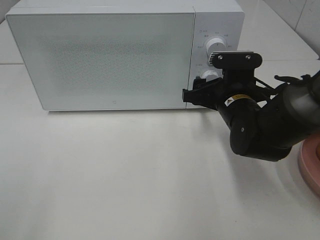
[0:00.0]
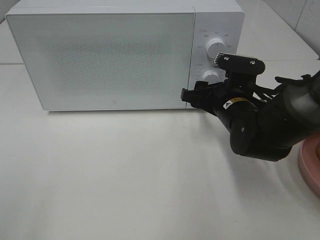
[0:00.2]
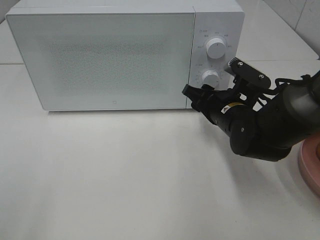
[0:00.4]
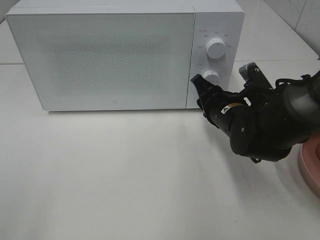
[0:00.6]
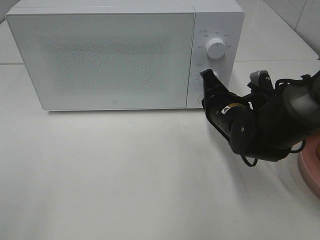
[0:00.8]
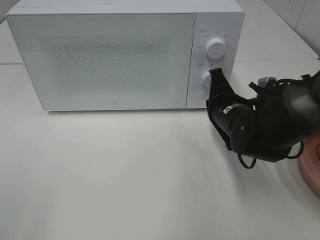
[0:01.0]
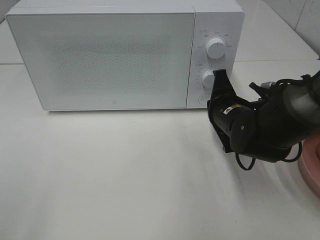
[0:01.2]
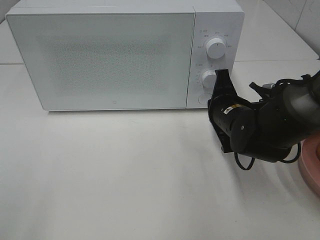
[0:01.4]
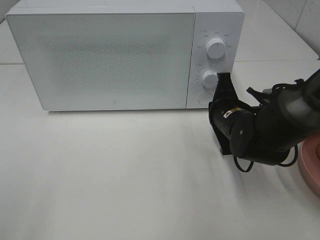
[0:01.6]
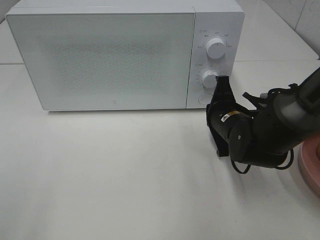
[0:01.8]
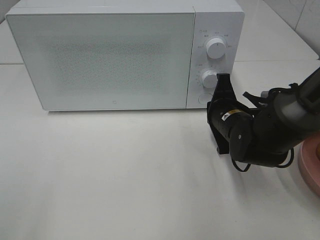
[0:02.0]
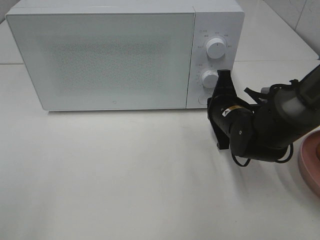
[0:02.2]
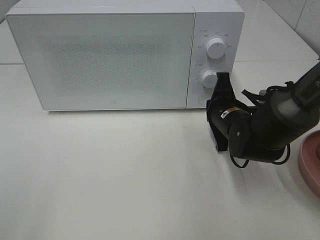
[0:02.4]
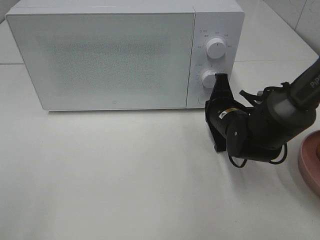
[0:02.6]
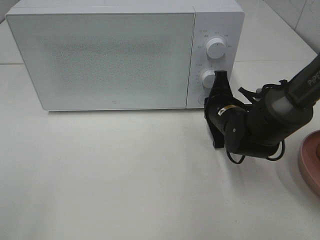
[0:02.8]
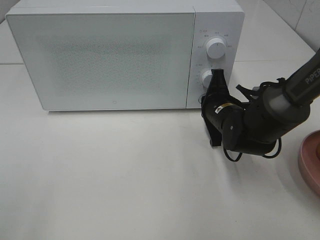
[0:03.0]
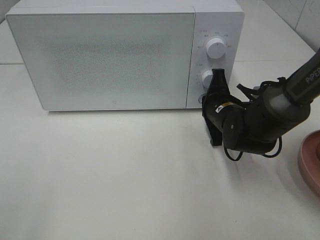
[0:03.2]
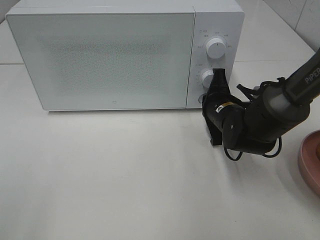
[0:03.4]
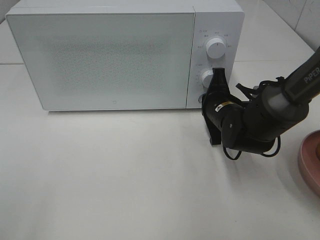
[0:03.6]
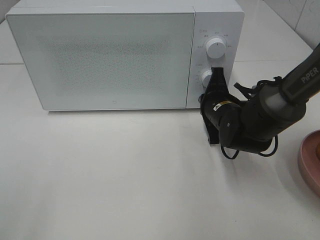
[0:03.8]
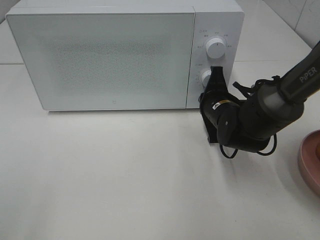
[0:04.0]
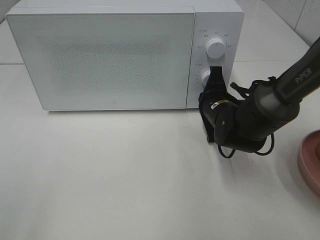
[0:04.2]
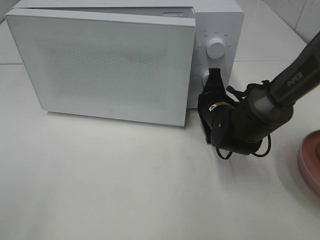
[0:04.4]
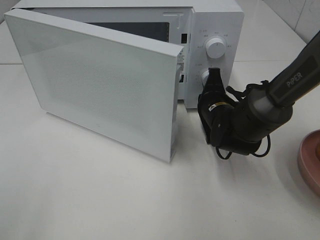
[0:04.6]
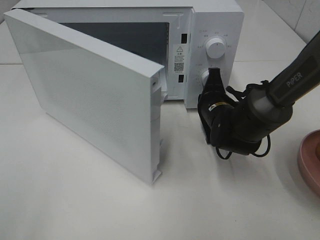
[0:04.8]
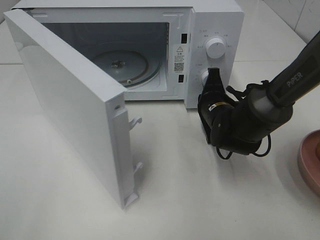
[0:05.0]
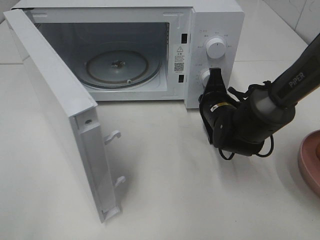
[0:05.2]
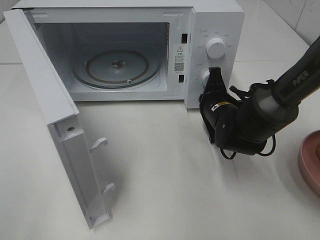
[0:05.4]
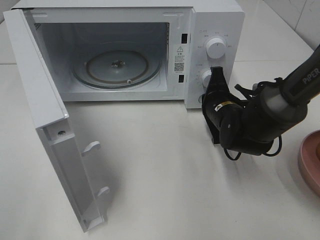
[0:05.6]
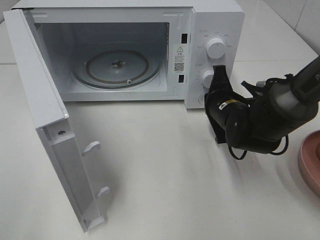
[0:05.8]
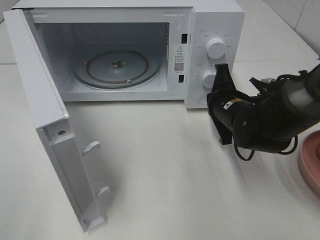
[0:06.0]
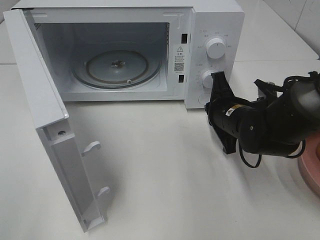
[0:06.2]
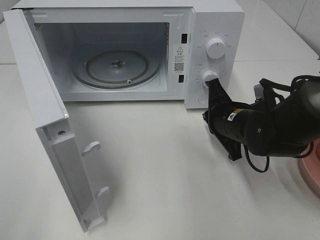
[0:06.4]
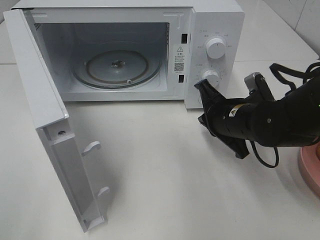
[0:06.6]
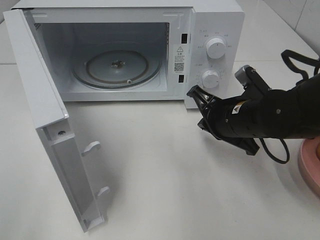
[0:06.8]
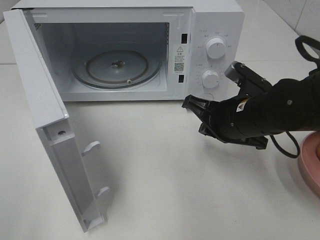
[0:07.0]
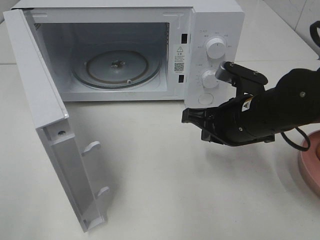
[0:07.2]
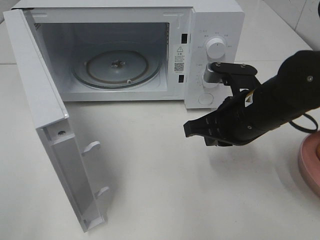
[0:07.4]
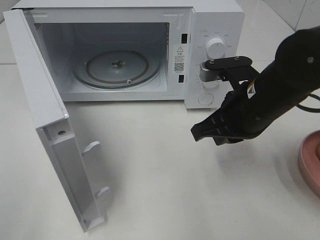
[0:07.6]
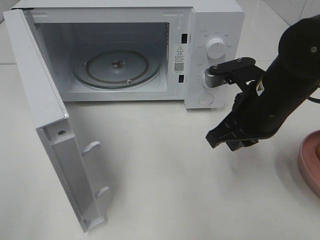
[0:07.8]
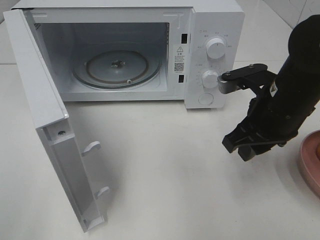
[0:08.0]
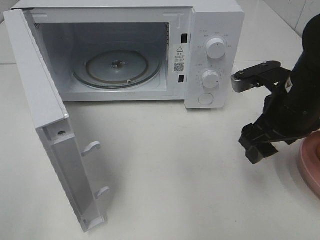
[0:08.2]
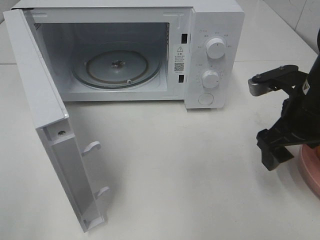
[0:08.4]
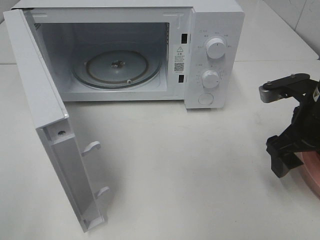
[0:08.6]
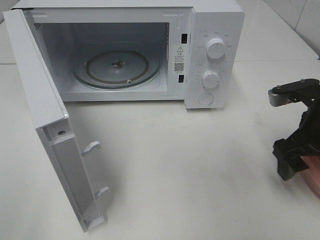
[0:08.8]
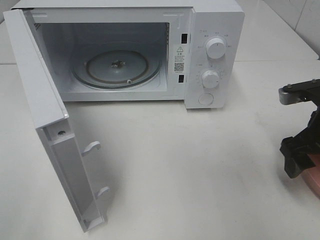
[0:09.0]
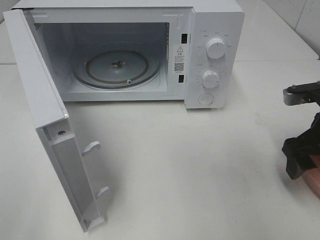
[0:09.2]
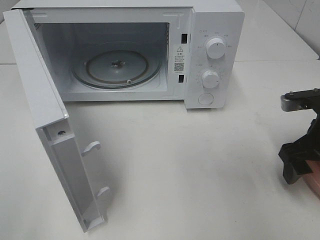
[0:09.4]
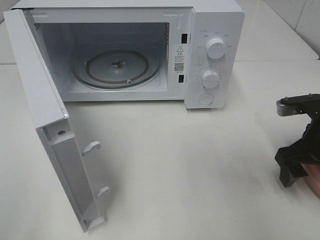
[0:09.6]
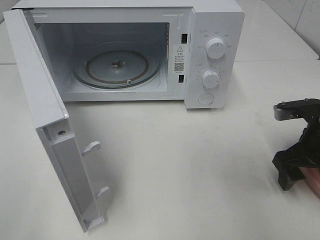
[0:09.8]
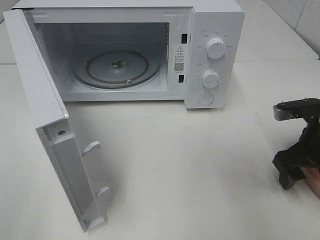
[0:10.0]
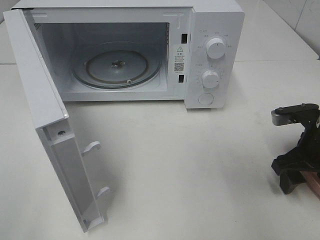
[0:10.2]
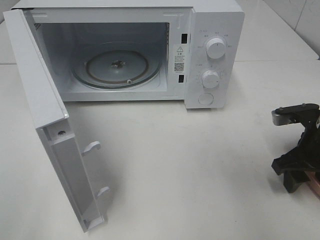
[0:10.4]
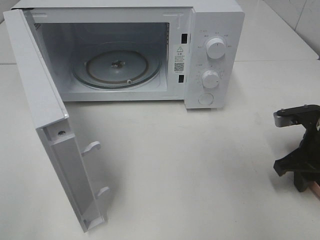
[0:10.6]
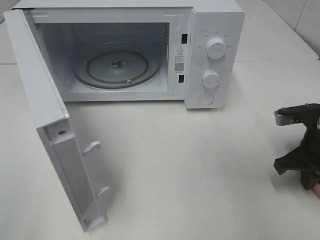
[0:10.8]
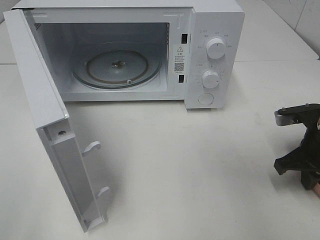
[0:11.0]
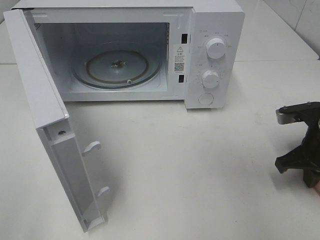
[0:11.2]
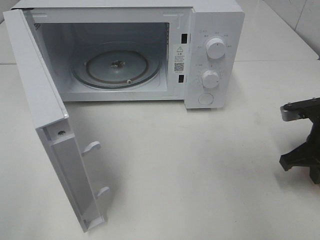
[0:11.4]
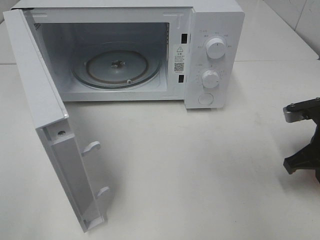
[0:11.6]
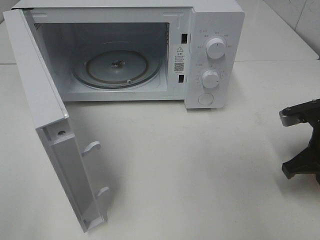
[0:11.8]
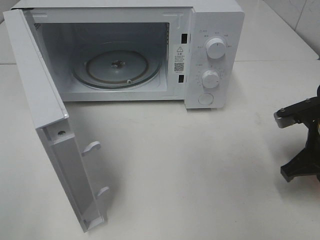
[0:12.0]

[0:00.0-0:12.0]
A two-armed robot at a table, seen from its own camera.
Task of the whole recording: Heat the burger.
Step, 0:00.0 to 0:05.8: Right hand: press the switch.
Step, 0:06.0 to 0:11.2: Right hand: grab the plate with the hamburger.
0:00.0 to 0:01.6: The right gripper closes its fingers.
0:01.6 to 0:04.4: The grippers move only a little.
0:06.0 to 0:07.6: The right gripper shifts about 10 cm upward and backward.
0:07.6 to 0:09.0: The right gripper is displaced to the right by approximately 10 cm, and opens.
0:09.0 to 0:10.4: The right gripper moves downward, roughly 5 cm.
0:10.4 to 0:12.0: The right gripper closes up.

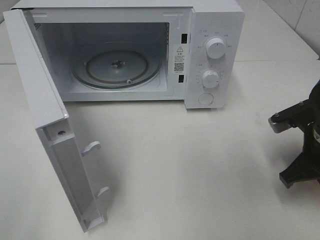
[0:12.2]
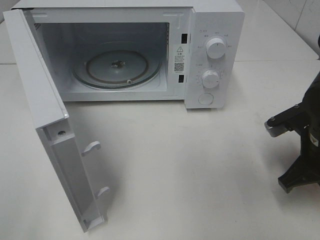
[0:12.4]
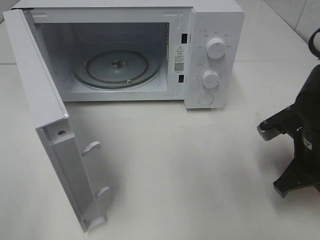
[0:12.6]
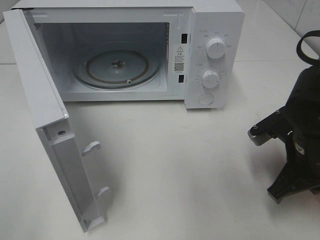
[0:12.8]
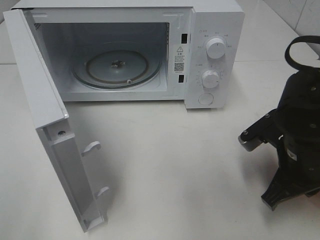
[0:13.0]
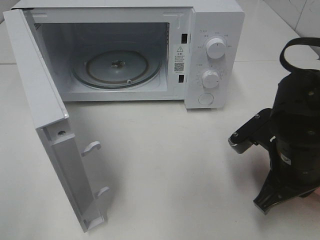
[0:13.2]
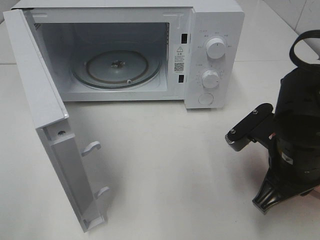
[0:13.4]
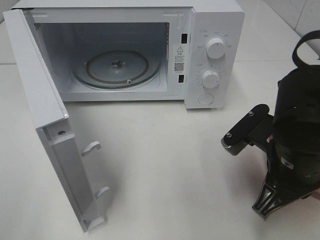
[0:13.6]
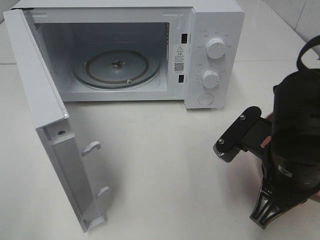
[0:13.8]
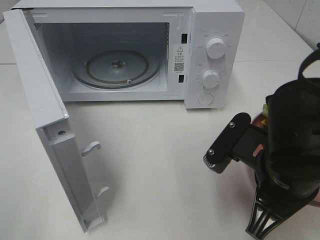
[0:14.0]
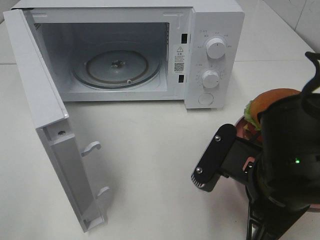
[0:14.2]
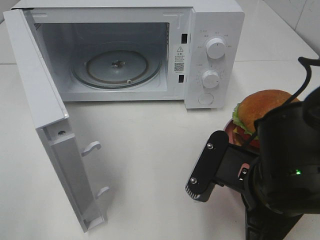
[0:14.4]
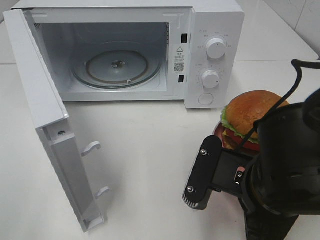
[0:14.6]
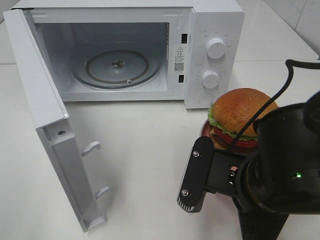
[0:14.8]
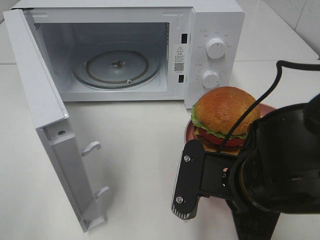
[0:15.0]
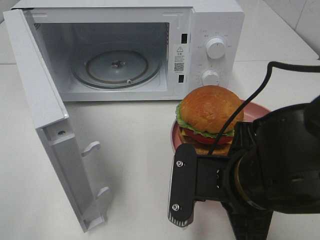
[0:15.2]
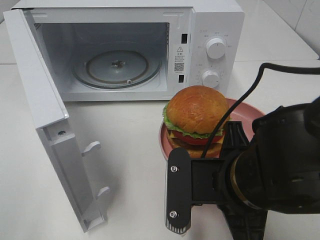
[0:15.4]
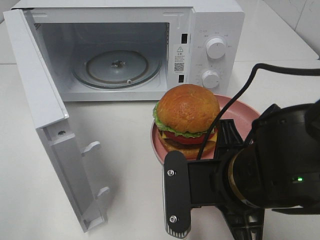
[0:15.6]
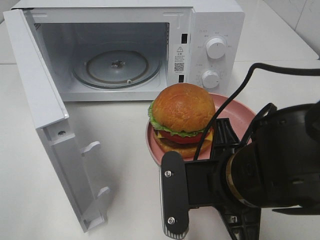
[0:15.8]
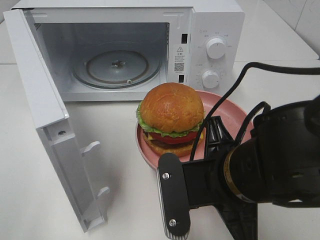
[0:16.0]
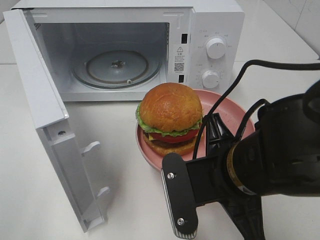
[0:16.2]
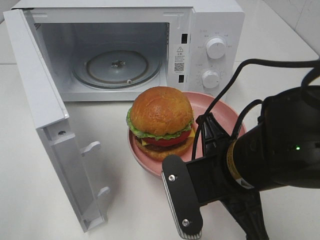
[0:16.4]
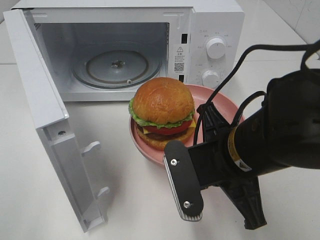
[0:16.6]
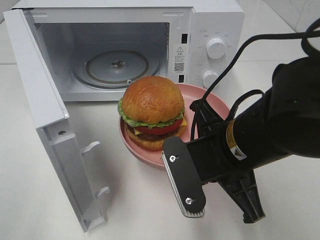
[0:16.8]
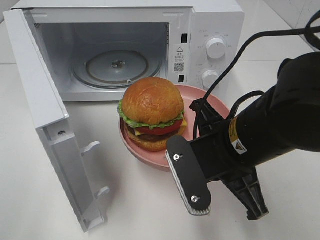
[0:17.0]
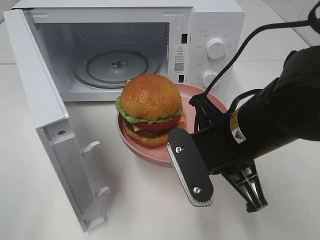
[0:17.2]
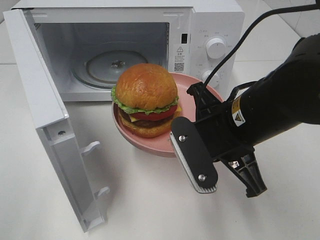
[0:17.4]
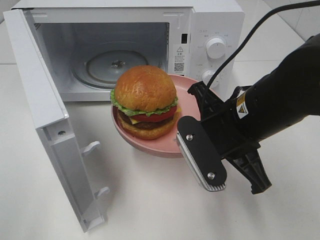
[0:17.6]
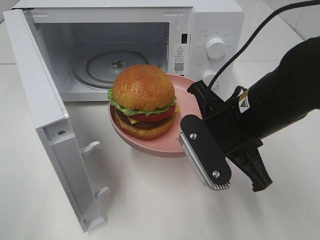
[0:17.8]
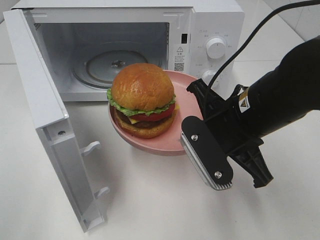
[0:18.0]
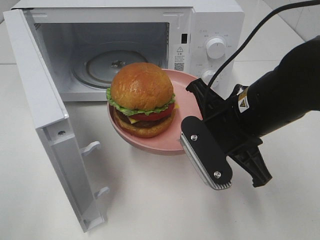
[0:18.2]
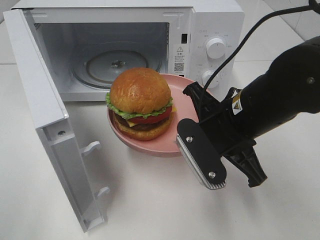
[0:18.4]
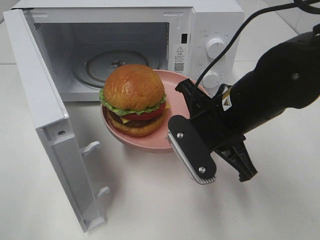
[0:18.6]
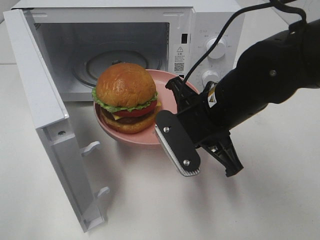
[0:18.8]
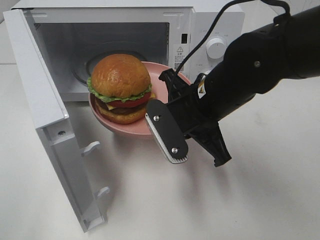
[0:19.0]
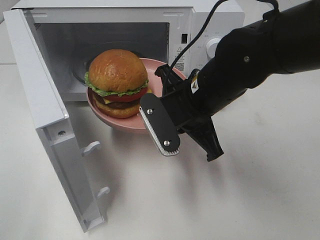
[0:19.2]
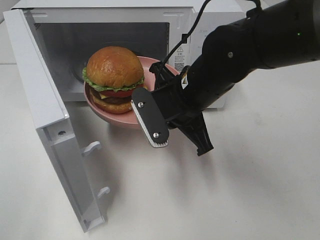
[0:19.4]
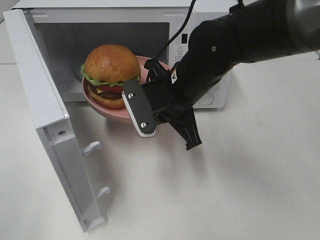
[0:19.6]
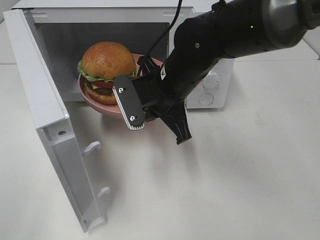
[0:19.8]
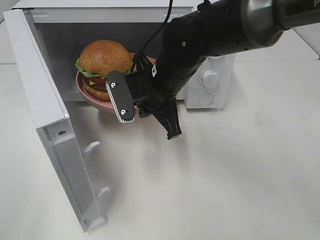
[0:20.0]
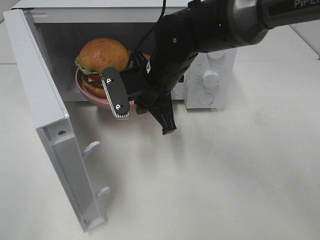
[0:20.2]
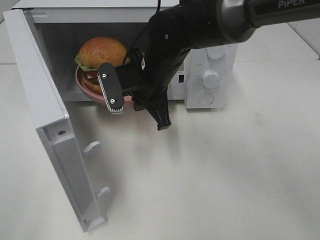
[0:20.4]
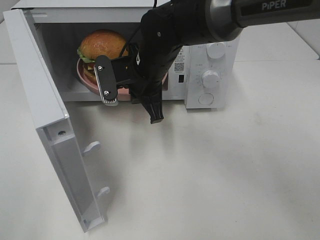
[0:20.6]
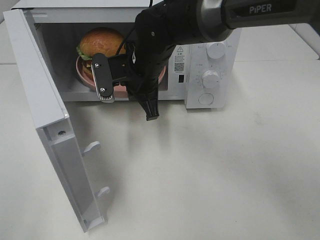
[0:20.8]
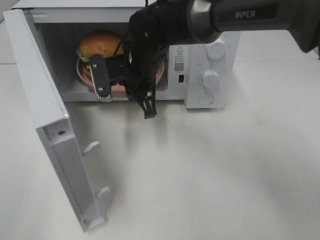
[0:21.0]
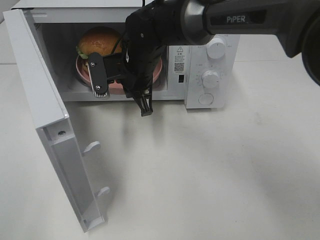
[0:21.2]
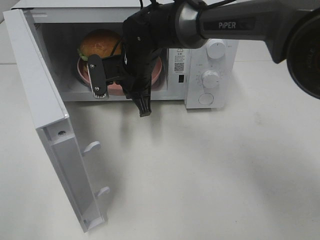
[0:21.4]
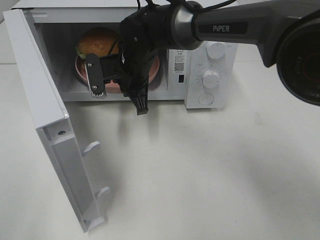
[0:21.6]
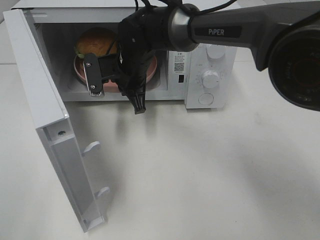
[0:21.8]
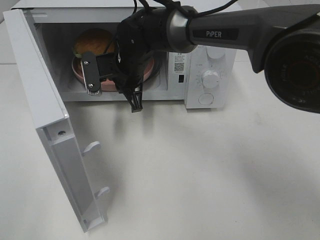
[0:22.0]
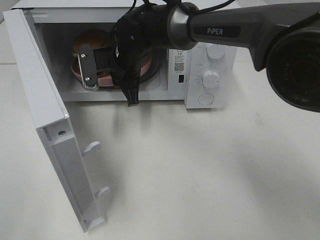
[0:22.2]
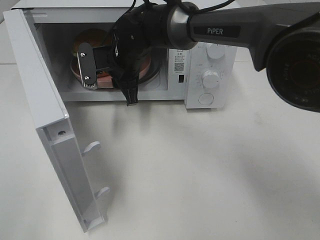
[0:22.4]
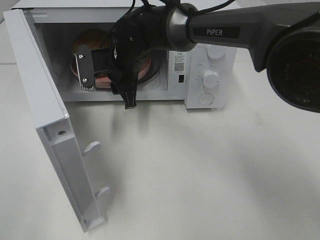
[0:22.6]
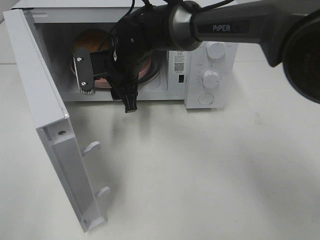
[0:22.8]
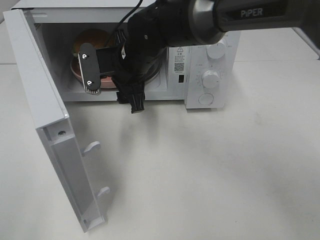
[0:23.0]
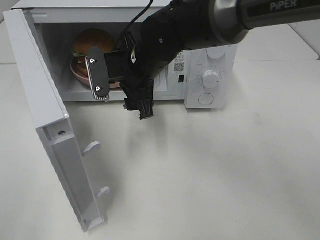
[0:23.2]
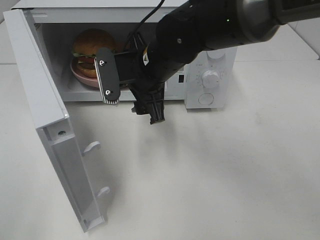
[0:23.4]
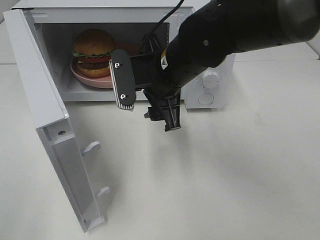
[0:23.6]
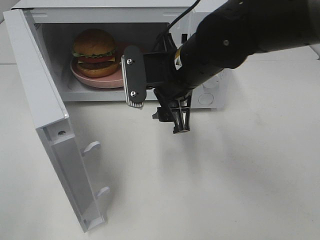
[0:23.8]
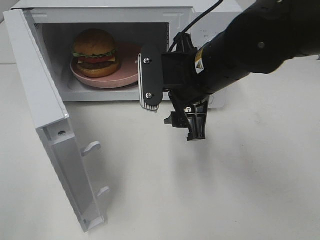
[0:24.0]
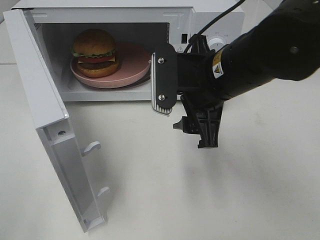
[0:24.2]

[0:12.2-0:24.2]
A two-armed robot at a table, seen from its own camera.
Task of the whole recording: Heat the burger.
Step, 0:12.2 to 0:22.2: Right hand: place the plate in the microwave.
0:12.2 to 0:13.8: The right gripper travels to the left and backward by some 10 cm.
0:13.8 to 0:15.2: The right gripper shifts approximately 5 cm to the left.
0:16.6 to 0:18.2: The right gripper moves about 5 cm.
0:18.2 to 0:19.8: The right gripper travels forward and to the left by approximately 10 cm.
0:19.8 to 0:21.2: The right gripper heads forward and to the left, covering about 10 cm.
0:21.2 to 0:22.6: The right gripper opens up.
0:22.6 to 0:24.2: The right gripper is displaced backward, to the right and upward by about 20 cm.
